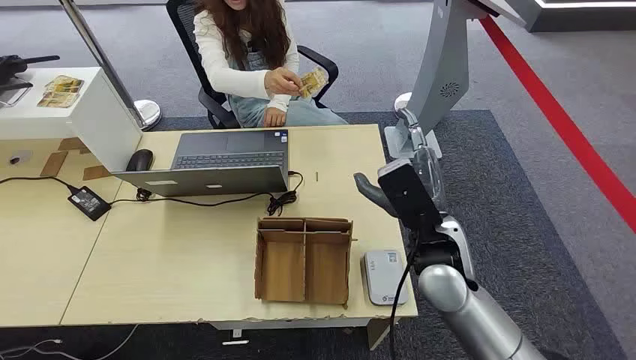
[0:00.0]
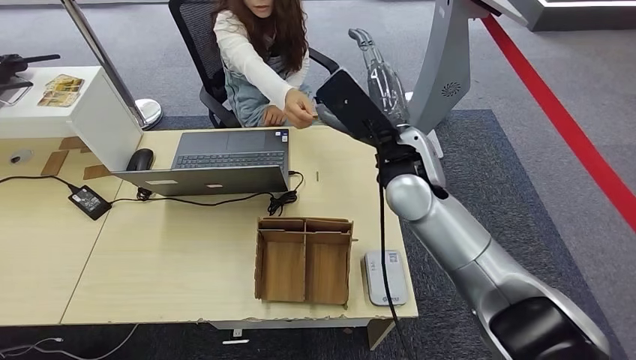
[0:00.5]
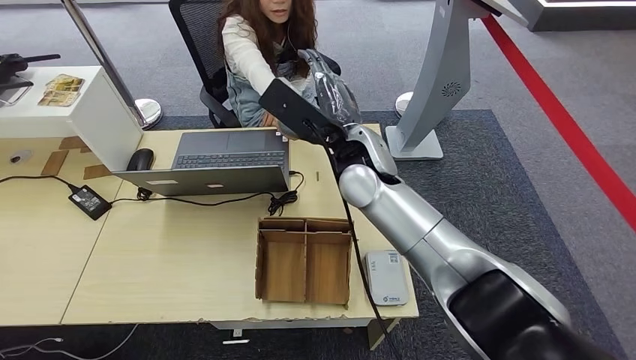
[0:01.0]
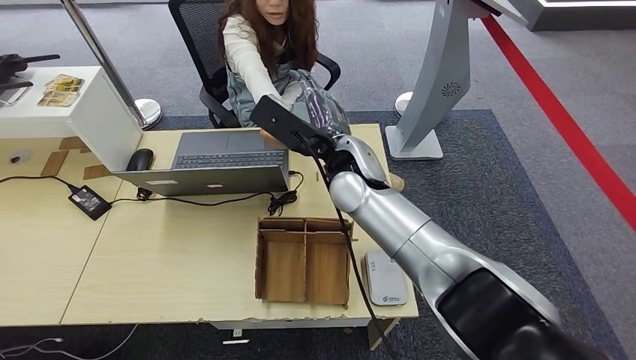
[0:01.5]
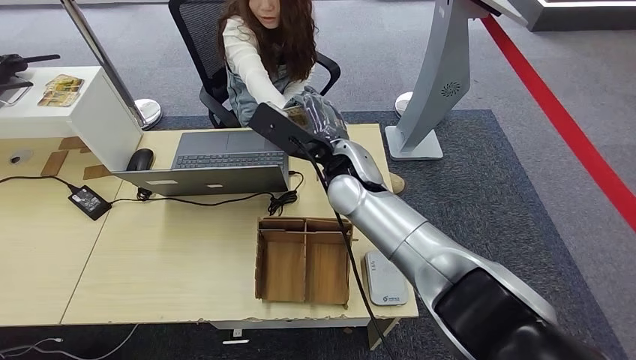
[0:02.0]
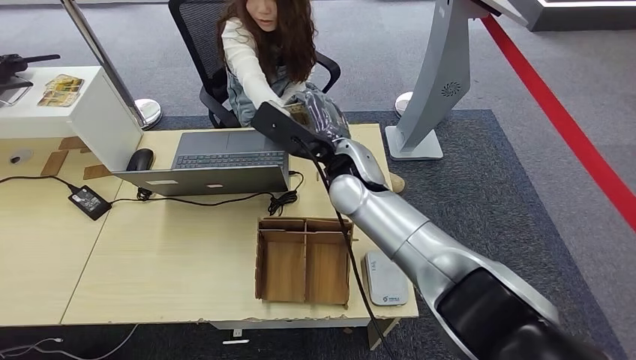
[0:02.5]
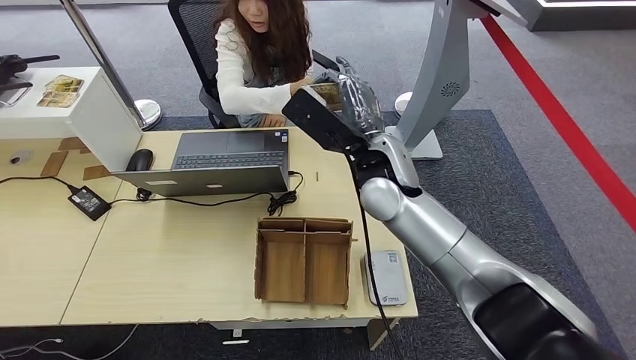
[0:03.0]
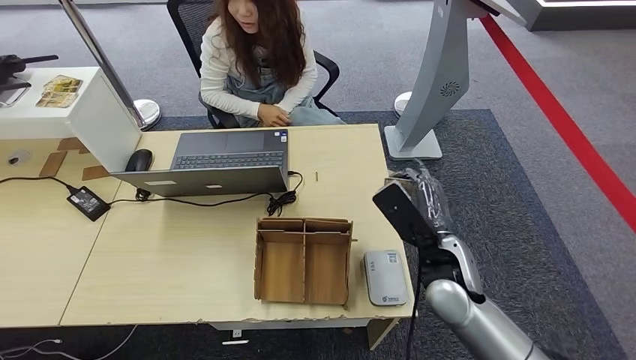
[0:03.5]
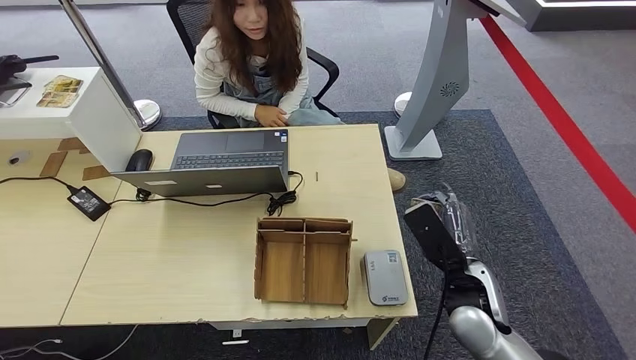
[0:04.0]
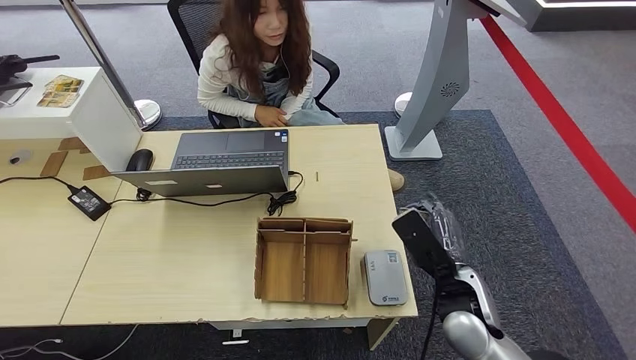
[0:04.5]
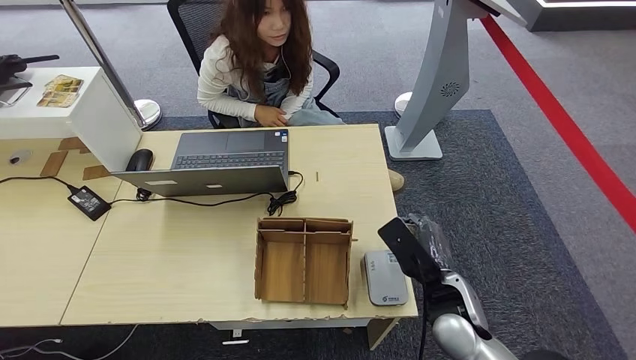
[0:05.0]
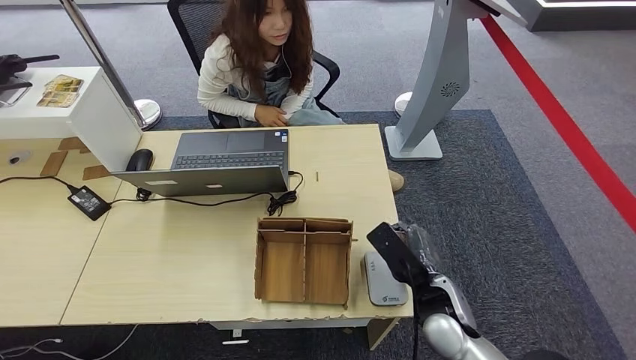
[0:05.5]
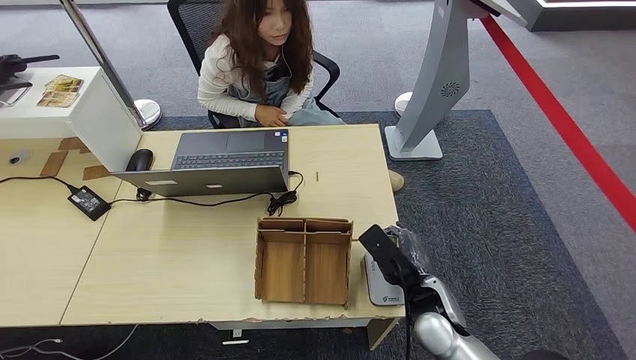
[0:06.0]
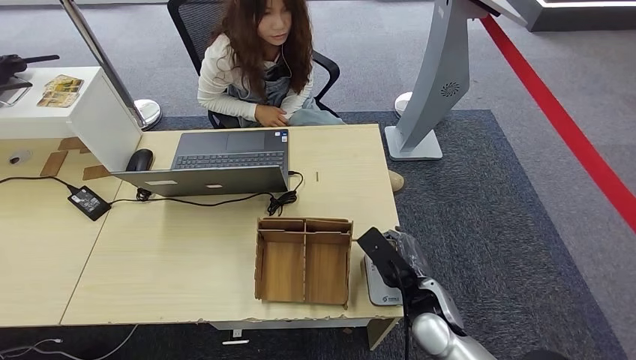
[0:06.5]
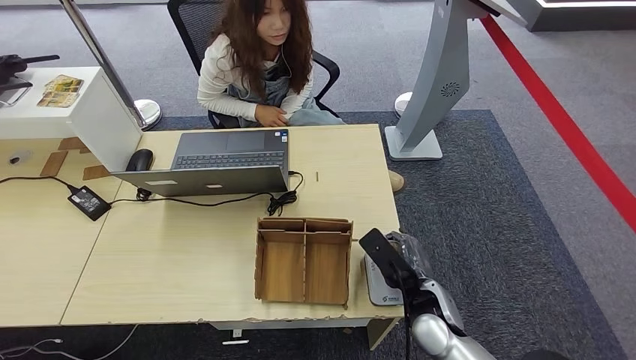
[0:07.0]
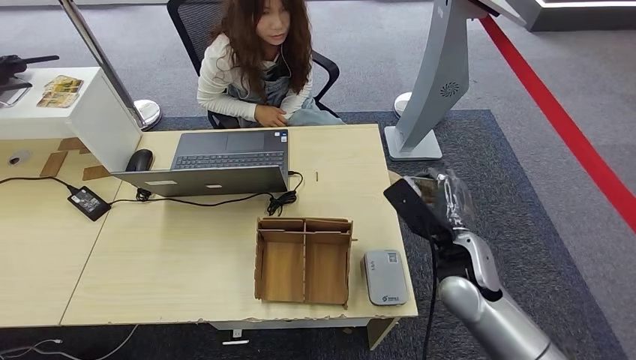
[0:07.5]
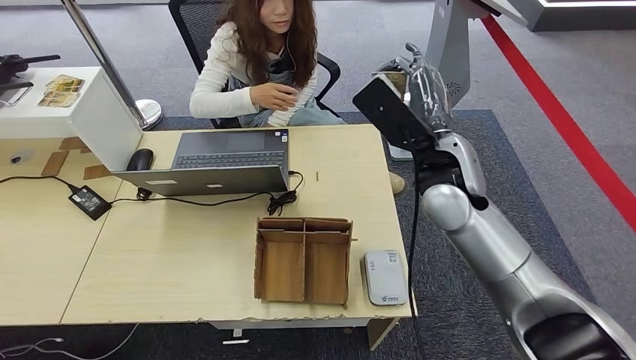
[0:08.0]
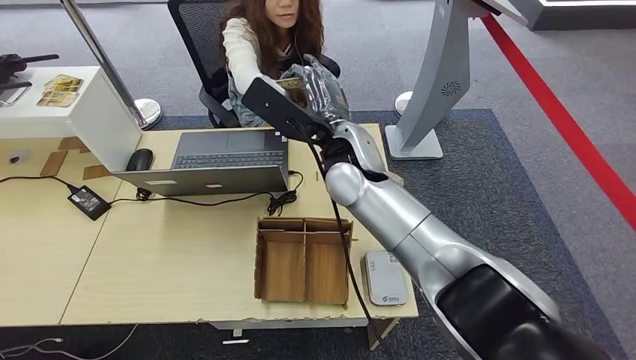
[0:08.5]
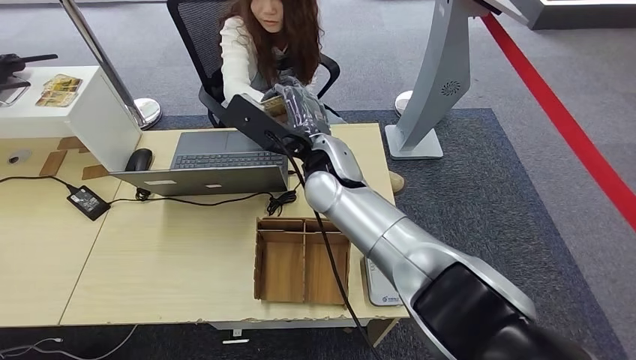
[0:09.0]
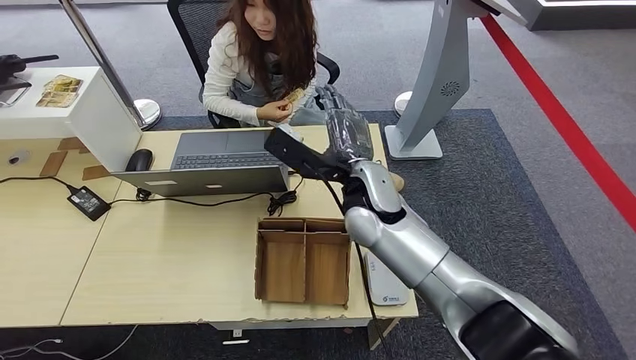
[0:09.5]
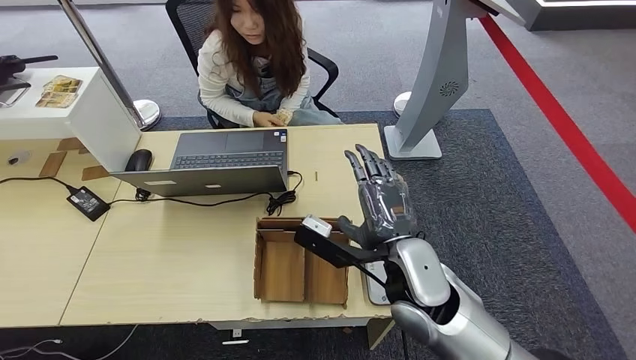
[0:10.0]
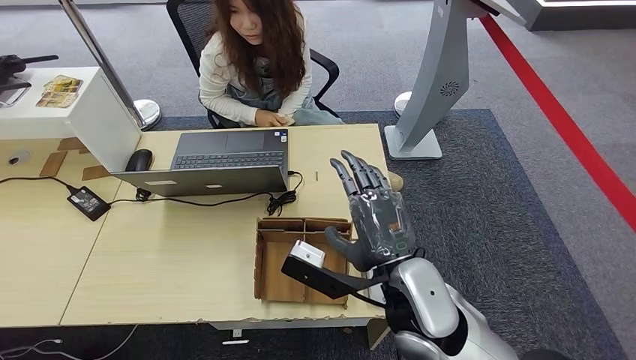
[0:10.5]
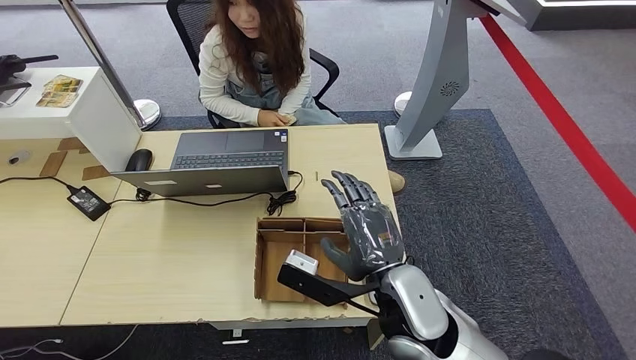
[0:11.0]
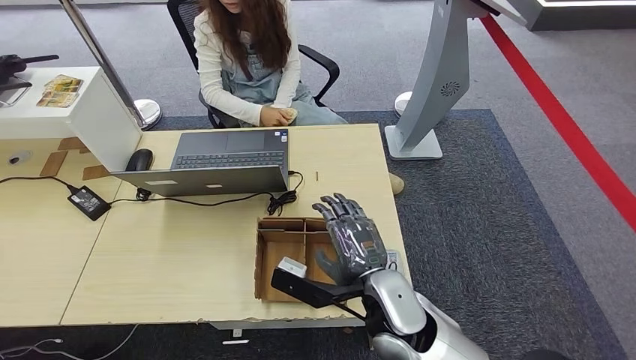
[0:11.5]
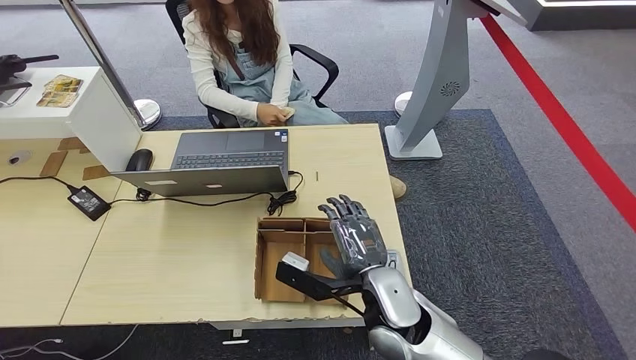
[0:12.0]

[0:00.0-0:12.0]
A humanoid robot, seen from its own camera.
Step, 0:00.0 to 0:01.5: Take the ID card from the person's hand.
Step, 0:04.0 to 0:07.0: Place the ID card on the card reader.
Step, 0:07.5 to 0:09.0: Hand the ID card to the person.
0:02.0 to 0:04.0: The right hand heads to the right, backward and downward, covering roughly 25 cm.
0:04.0 to 0:06.0: The right hand heads downward, covering approximately 5 cm.
0:06.0 to 0:08.0: The right hand travels upward and forward by some 20 cm.
0:10.0 to 0:12.0: The right hand goes roughly 5 cm downward.

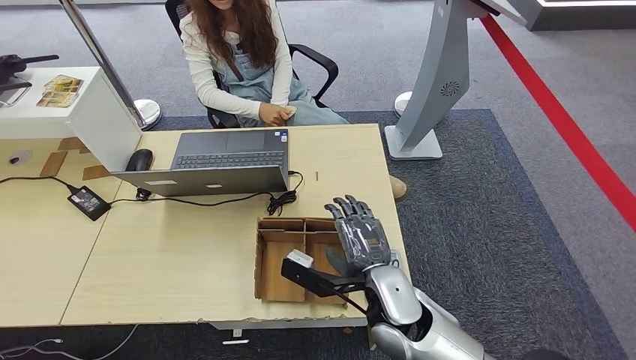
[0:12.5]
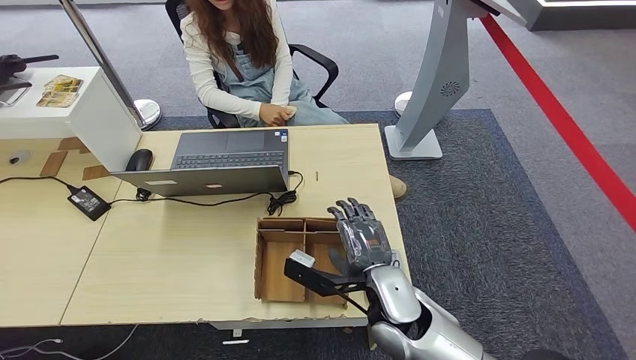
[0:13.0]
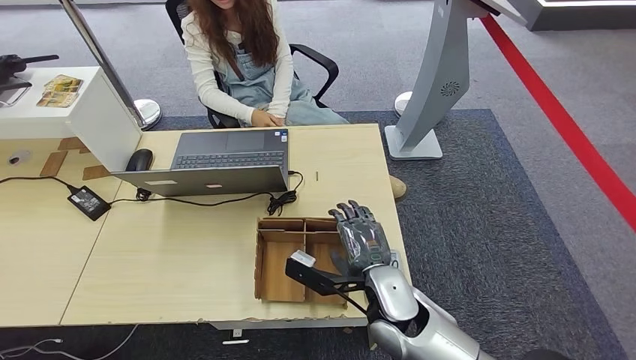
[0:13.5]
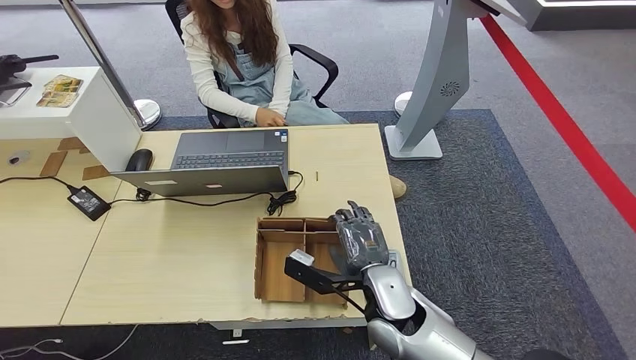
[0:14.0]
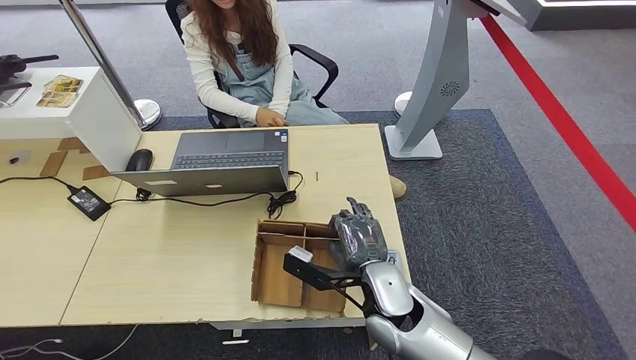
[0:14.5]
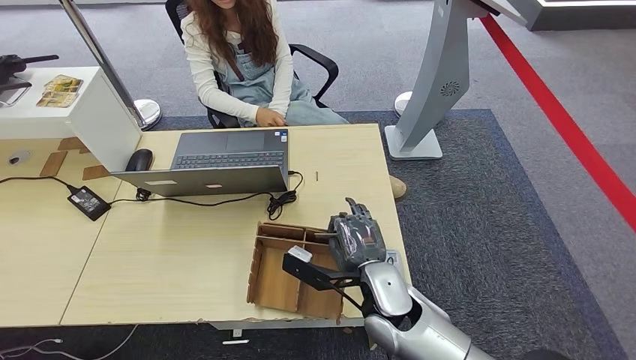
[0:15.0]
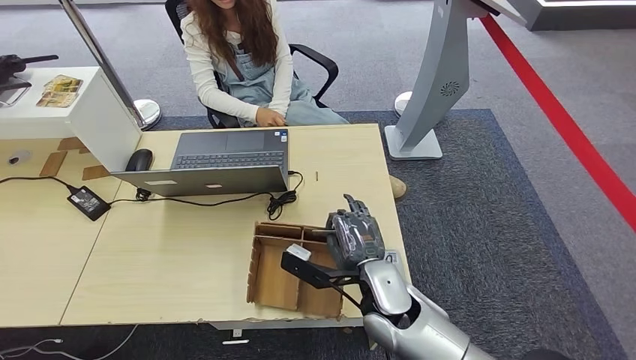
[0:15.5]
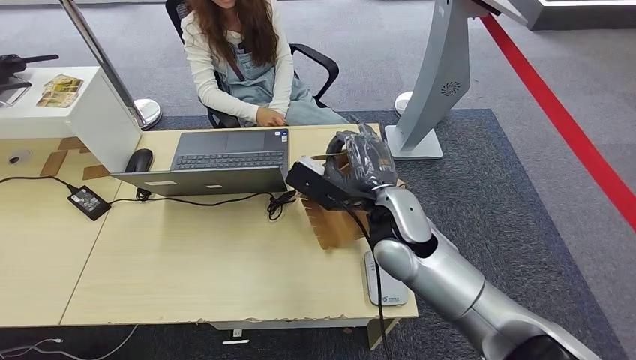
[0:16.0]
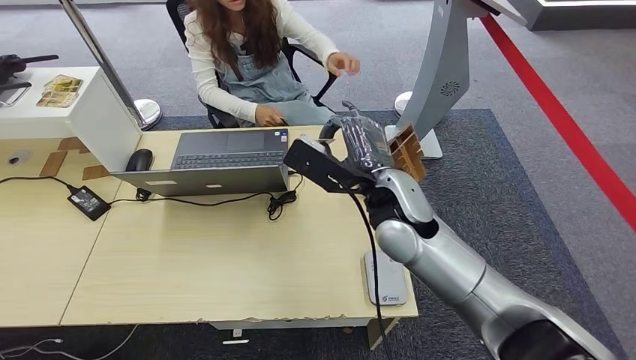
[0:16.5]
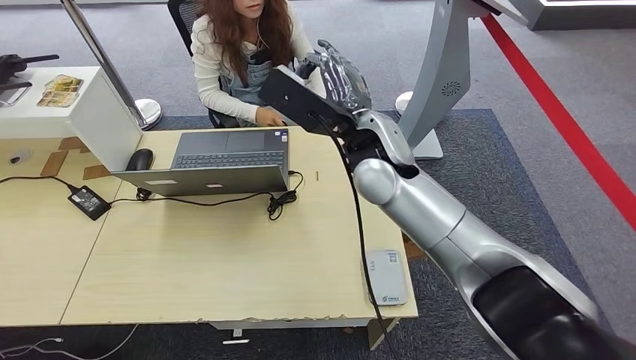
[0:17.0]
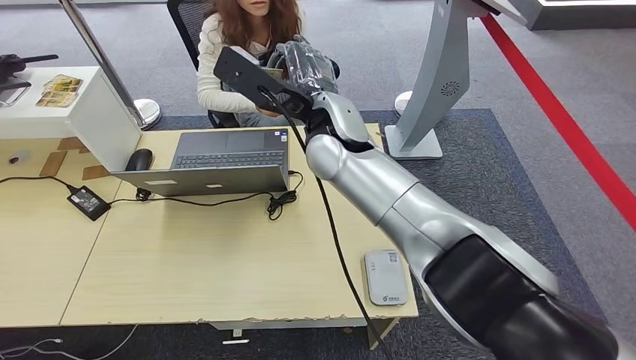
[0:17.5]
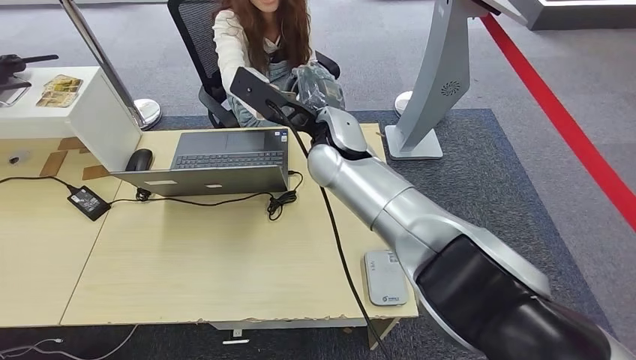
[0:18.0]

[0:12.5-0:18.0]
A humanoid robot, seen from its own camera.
Step, 0:12.5 to 0:15.0: Pick up the room key from the key card box.
Step, 0:15.5 to 0:18.0: Hand the room key to the person.
0:12.5 to 0:14.5: The hands stay close to where they were, moving slightly.
0:14.5 to 0:16.0: The right hand goes about 15 cm upward and forward.

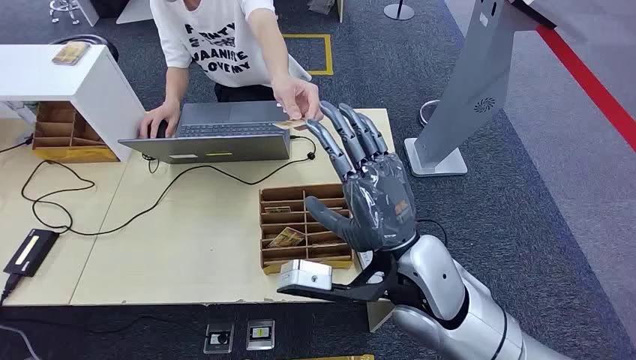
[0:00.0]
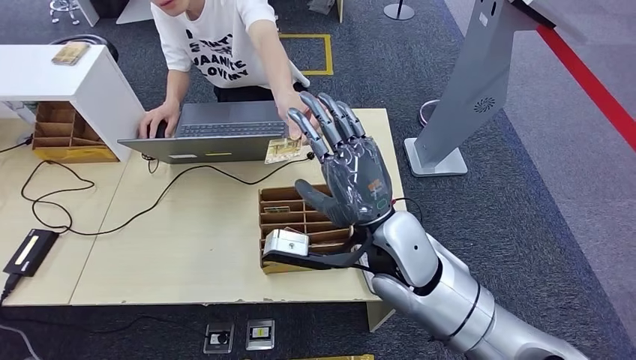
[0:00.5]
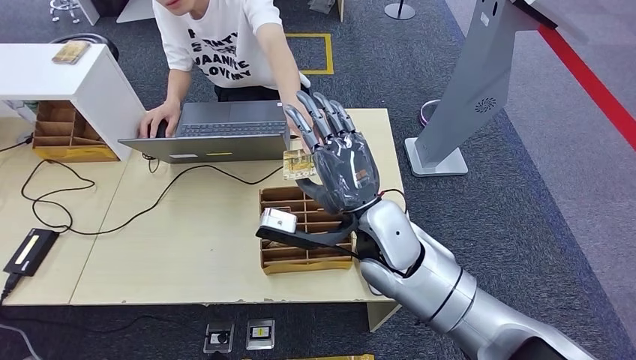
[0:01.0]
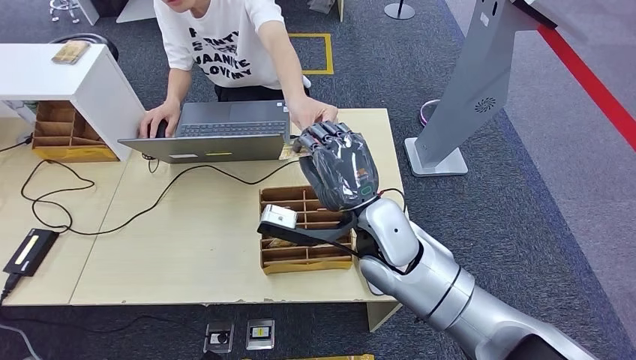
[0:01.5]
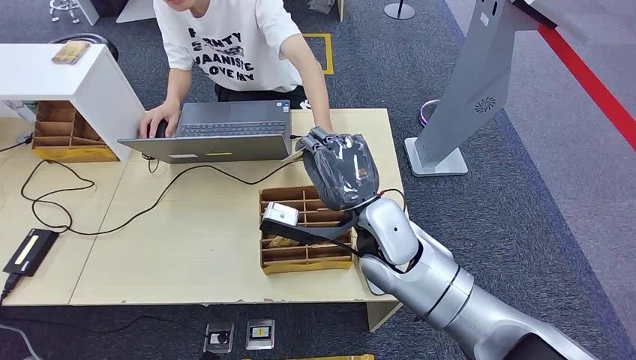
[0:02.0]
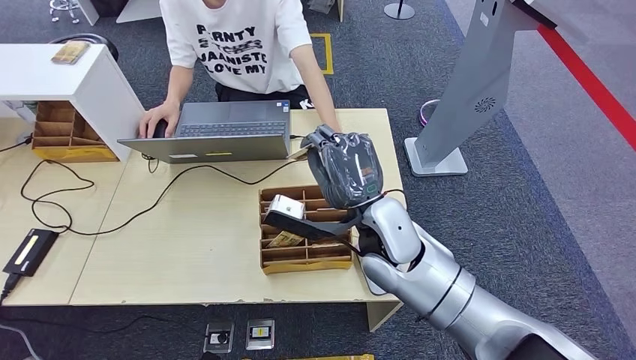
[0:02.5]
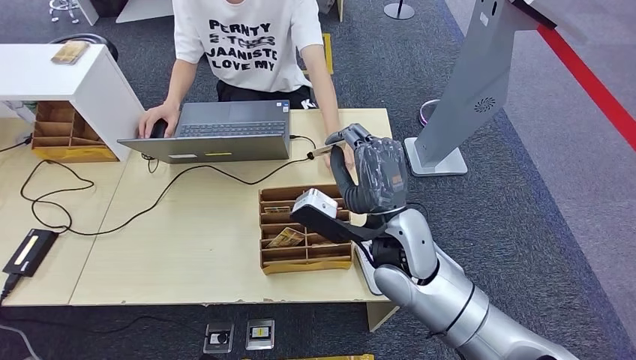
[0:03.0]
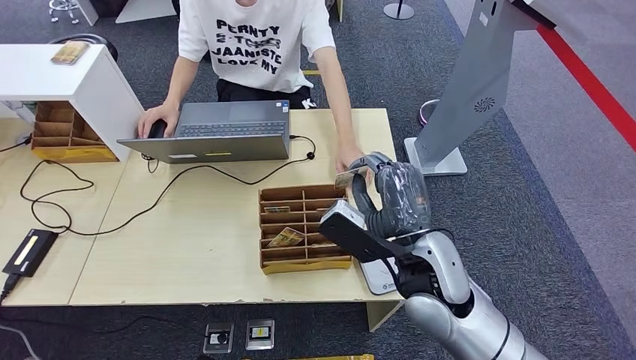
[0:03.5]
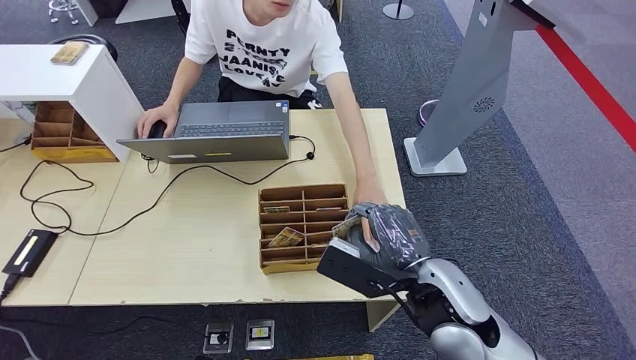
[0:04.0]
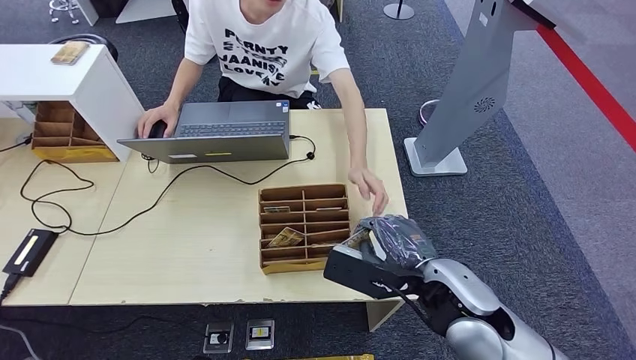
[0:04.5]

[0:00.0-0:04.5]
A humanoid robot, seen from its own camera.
Step, 0:00.0 to 0:04.0: Take the ID card from the person's hand.
0:02.0 to 0:04.5: The right hand travels to the right and backward by roughly 15 cm.
